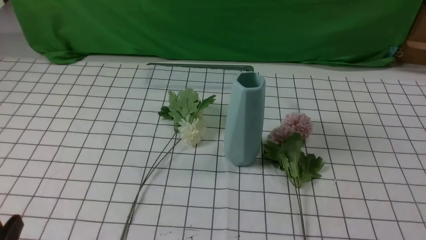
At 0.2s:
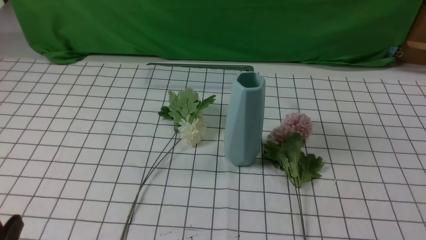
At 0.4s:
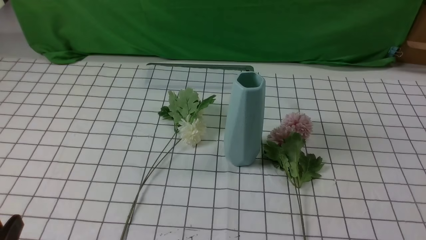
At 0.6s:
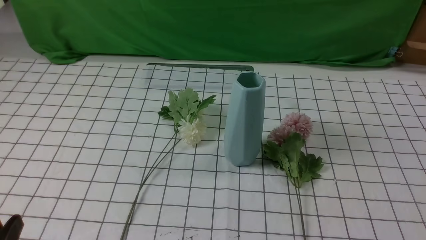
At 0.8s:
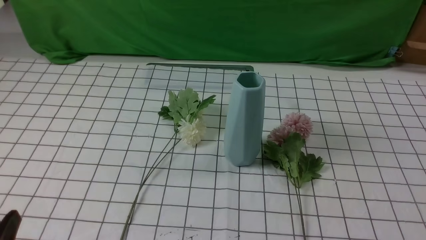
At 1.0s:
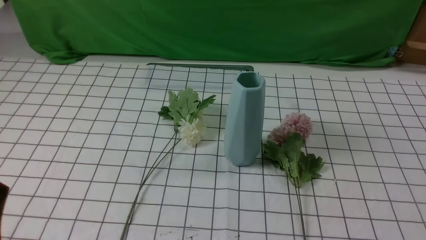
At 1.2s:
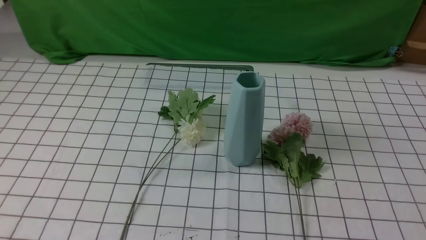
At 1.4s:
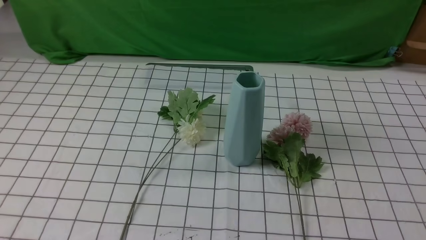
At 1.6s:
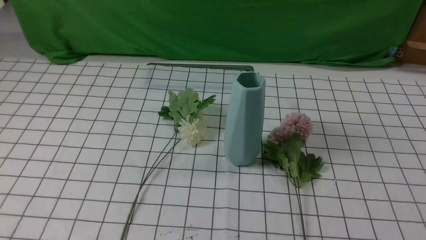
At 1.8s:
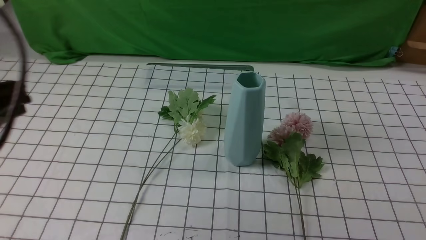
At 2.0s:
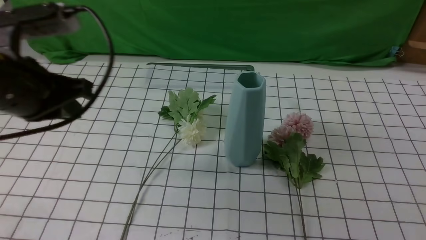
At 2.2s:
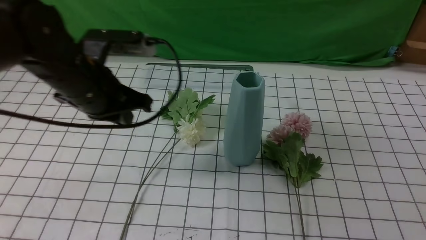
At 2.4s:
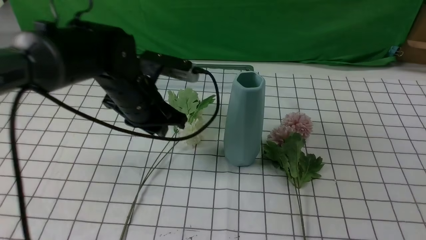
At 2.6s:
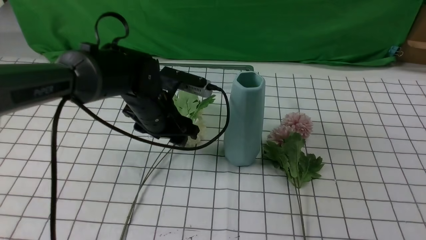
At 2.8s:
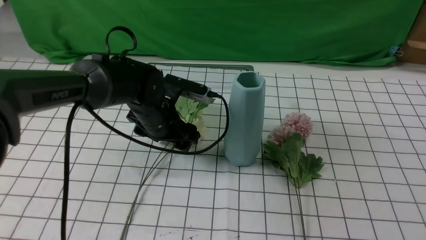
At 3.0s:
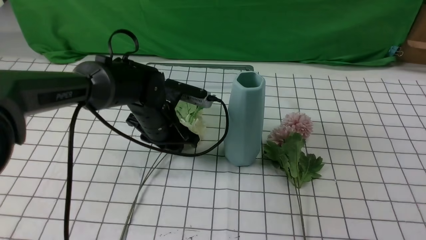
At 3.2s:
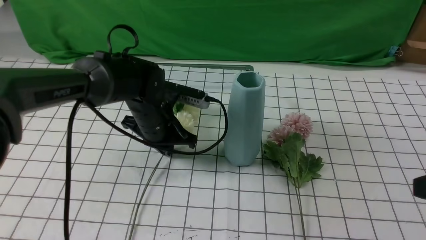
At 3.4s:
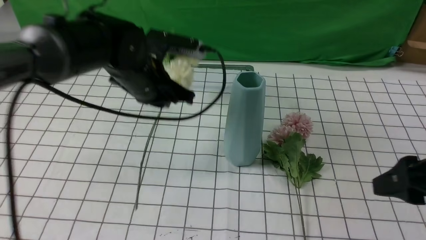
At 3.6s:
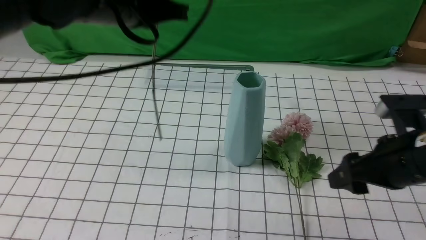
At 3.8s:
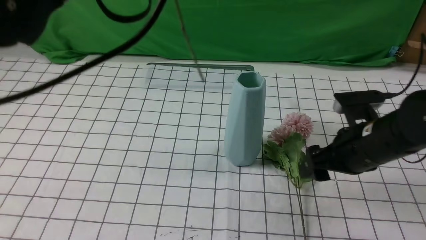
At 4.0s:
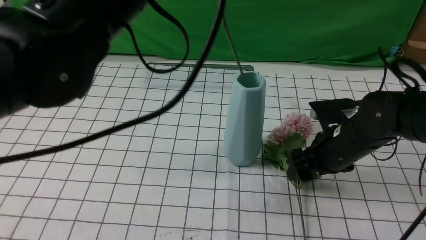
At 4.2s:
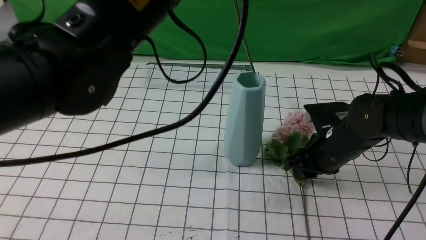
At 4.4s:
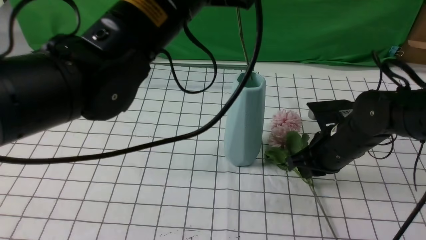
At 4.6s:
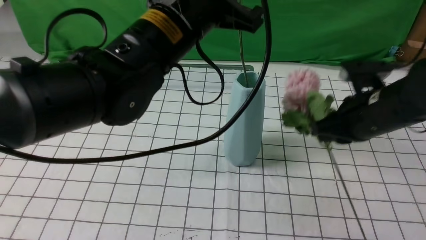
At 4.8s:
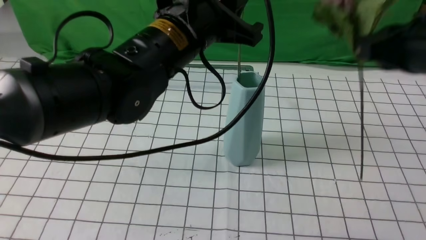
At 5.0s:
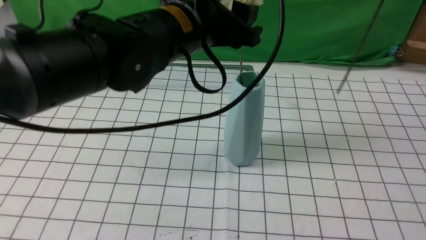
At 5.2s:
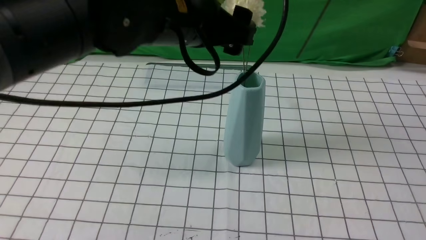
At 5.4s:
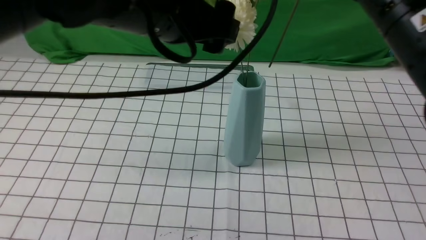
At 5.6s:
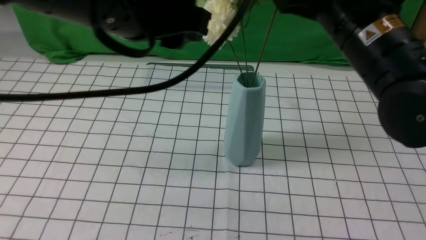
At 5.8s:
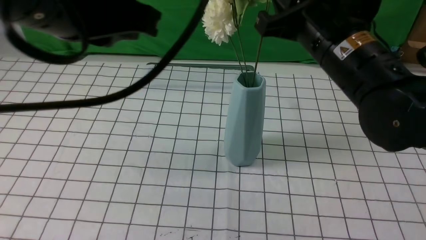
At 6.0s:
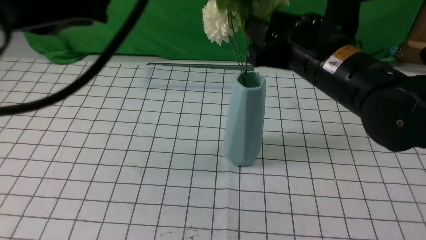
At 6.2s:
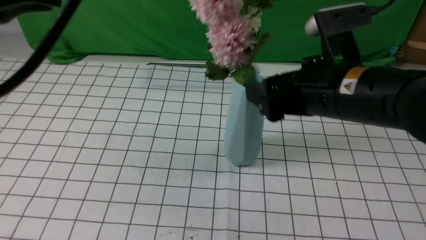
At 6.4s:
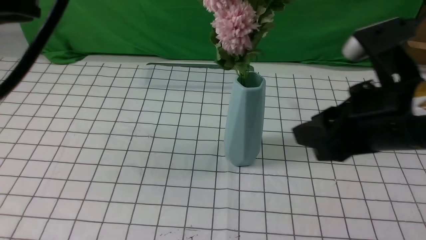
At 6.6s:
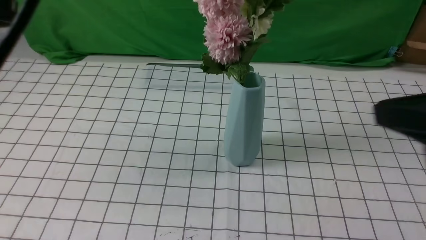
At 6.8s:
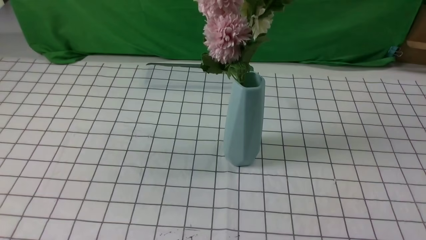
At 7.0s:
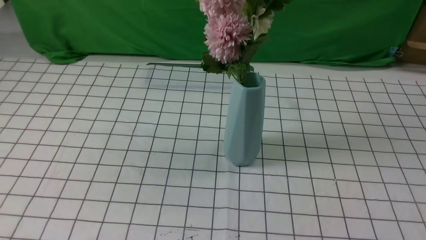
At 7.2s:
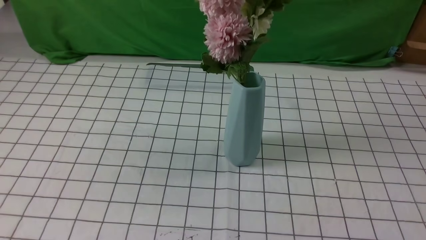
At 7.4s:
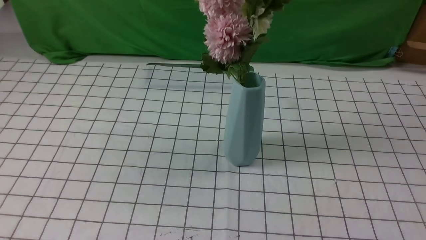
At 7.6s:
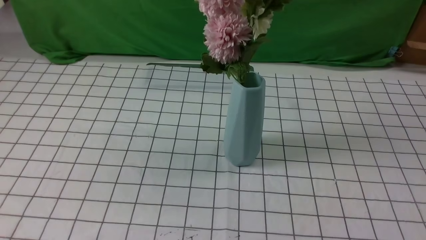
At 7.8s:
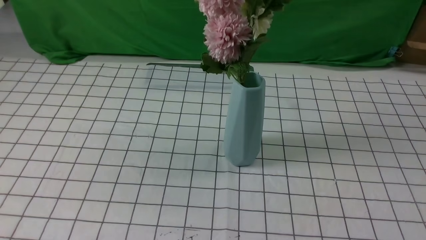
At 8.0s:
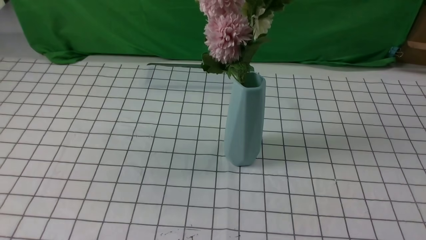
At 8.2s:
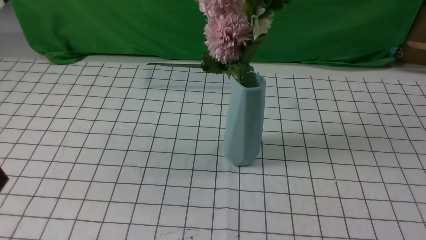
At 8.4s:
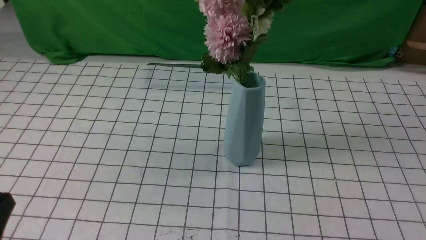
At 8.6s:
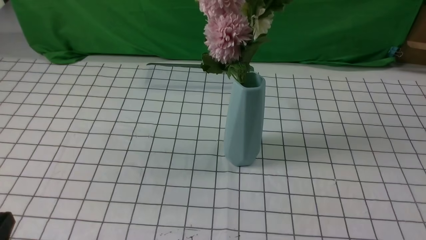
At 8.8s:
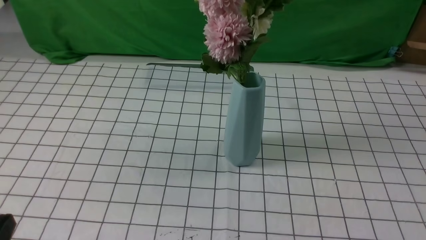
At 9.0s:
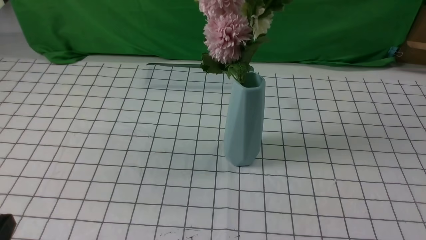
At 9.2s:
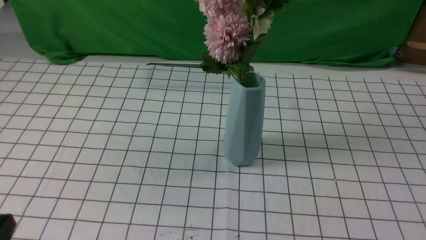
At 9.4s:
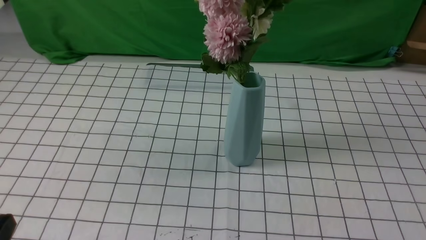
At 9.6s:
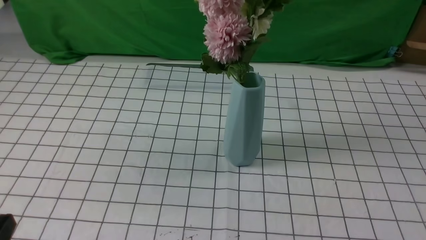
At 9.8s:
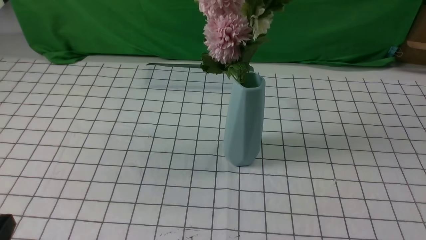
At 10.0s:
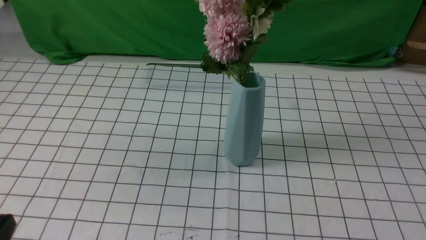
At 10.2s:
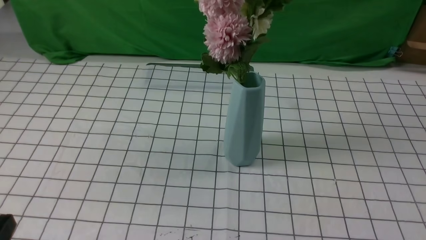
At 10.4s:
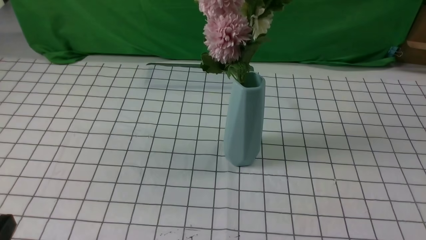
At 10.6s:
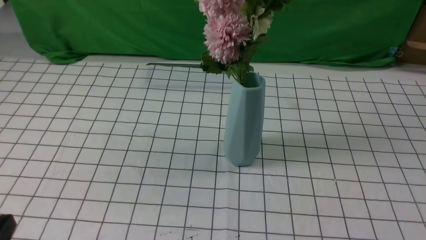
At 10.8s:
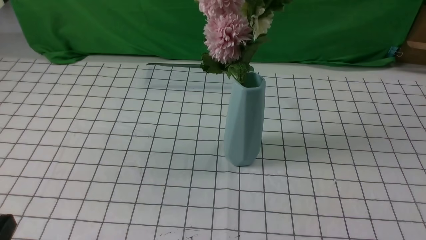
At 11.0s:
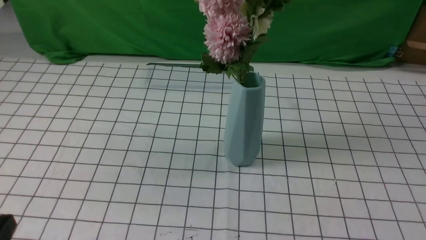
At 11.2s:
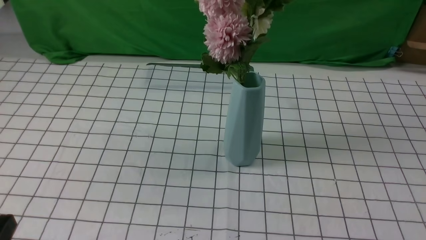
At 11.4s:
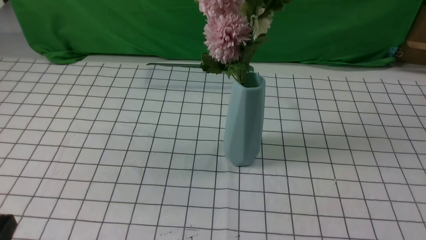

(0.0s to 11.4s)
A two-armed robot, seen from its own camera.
Task of the whole recording: insert the flowers into the vase on the table with the white tablecloth.
Step, 0.0s - 6.2s: Put the flowers in the vase with both hands.
1.4s - 2.8s: The right gripper is displaced upward and forward by some 15 cm, and opens its fingers, while the left gripper goes roughly 35 cm forward and to the right, and opens up.
2.8s - 4.2s: The left gripper moves upward and backward, some 25 cm, and closes. The right gripper moves forward, downward and to the left, about 30 cm, and closes up.
4.2s - 5.6s: The left gripper shifts by roughly 5 cm, and opens its fingers. Meanwhile the right gripper moves upward, about 20 cm.
5.6s - 7.2s: The right gripper travels backward and to the right by roughly 30 cm, and opens, then closes once more, while the left gripper shifts about 25 cm backward and to the left, and closes its fingers.

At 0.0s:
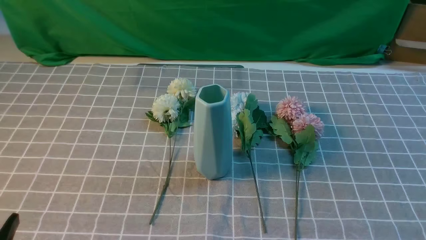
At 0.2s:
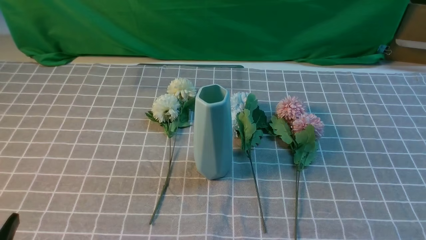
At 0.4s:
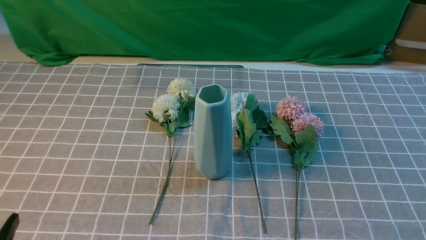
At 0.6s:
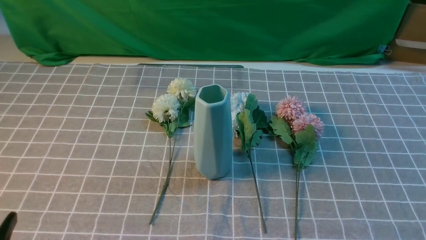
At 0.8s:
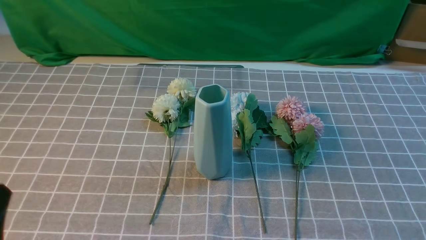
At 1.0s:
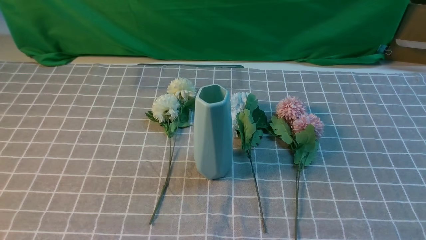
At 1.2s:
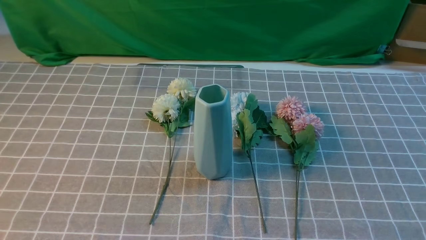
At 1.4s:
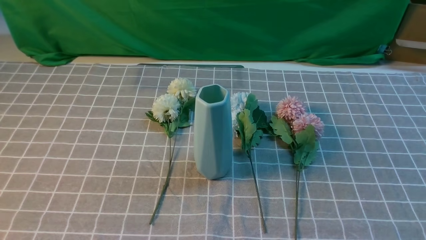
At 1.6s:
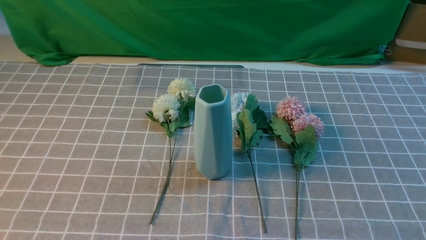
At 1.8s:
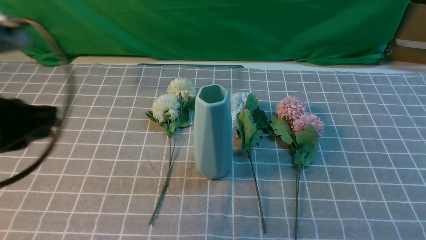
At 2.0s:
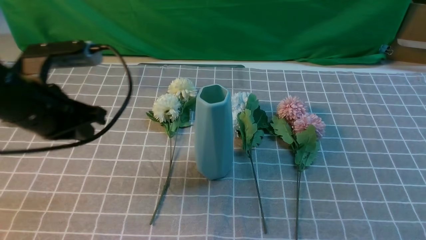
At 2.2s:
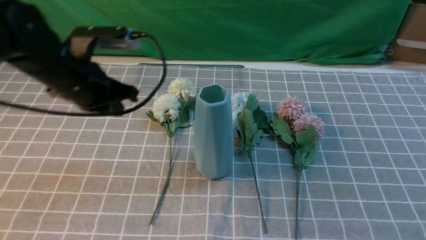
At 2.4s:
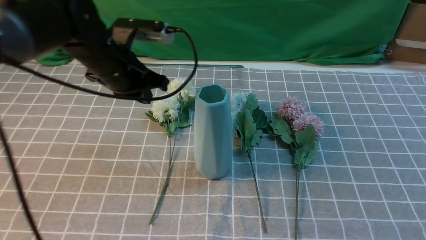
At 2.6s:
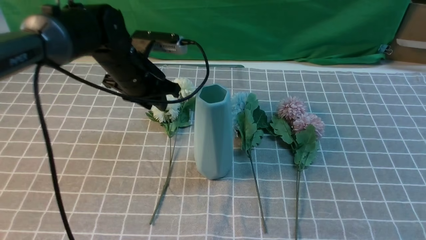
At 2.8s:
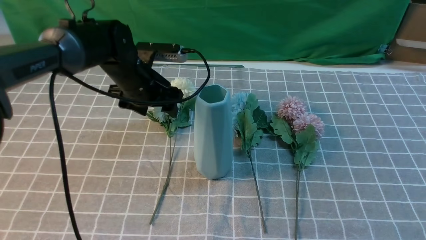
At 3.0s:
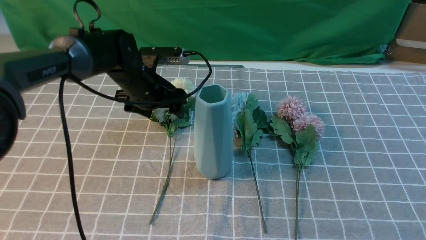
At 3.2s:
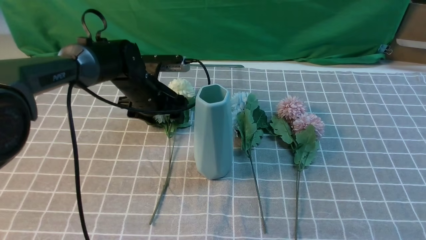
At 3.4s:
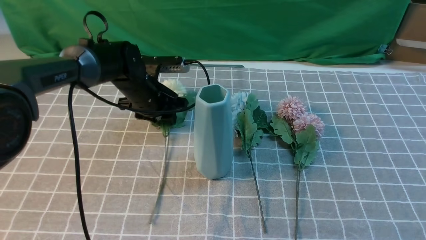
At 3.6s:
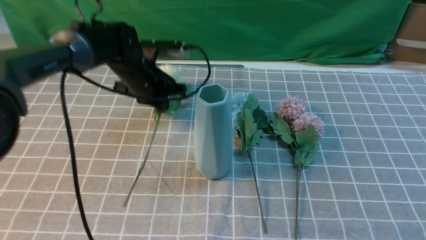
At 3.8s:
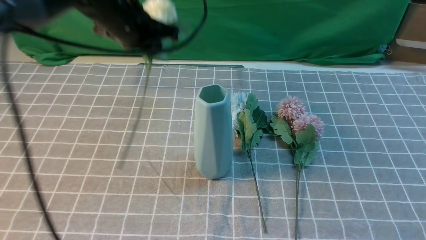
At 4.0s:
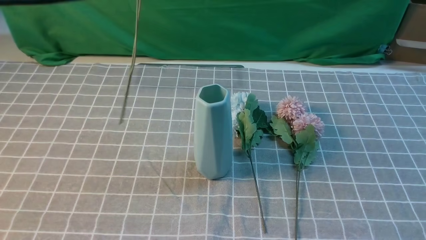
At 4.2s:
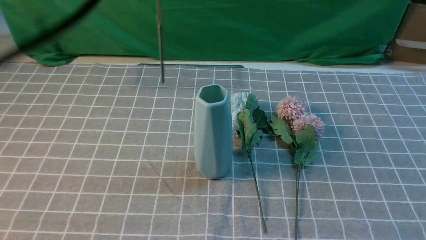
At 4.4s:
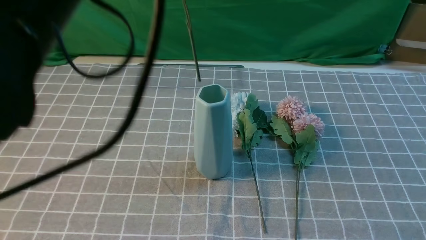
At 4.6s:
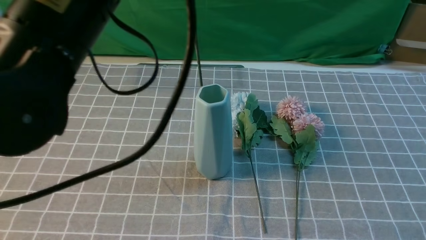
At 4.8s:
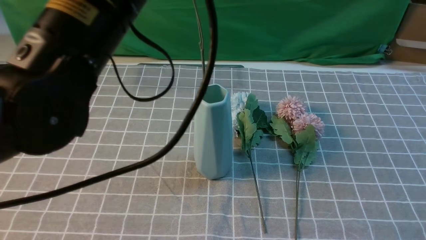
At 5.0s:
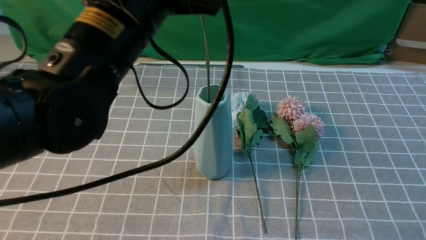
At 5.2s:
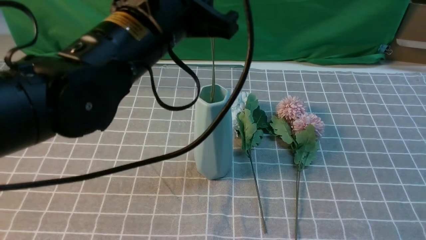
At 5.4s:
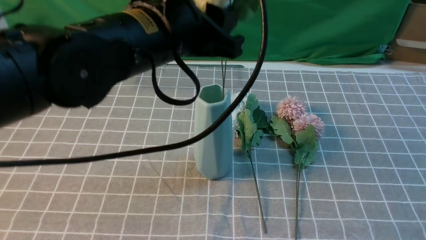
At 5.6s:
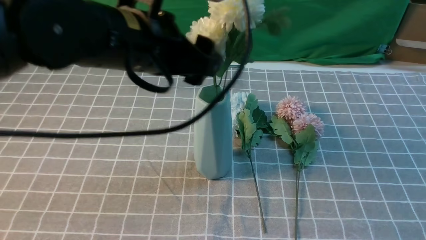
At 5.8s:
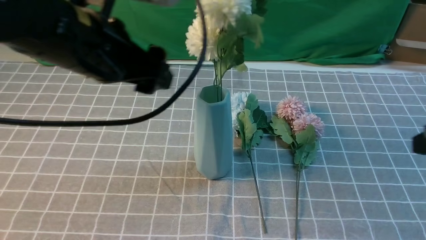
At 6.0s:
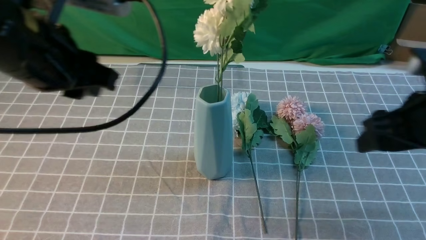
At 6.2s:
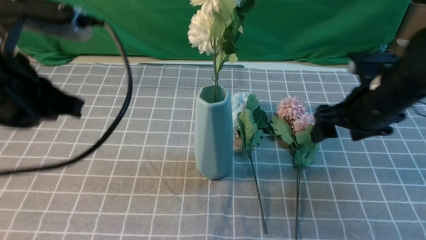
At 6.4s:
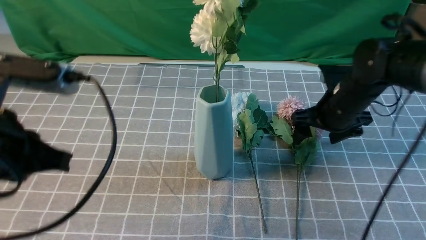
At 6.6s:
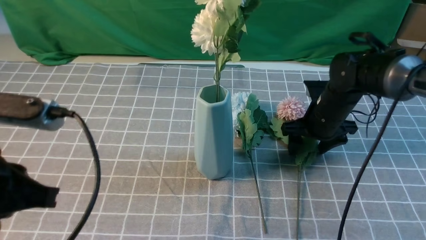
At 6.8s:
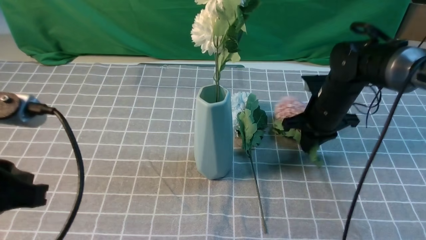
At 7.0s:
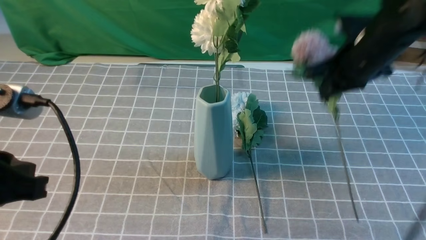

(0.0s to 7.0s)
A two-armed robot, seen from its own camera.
Task of the whole recording: insert the flowers into the vase on the table with the grey tablecloth.
Step, 0.0s - 3.4s: use the left arm to grab a bunch of fresh flowers.
Step, 3.6s - 5.6s: use the left arm to insert the flowers into the vase.
Step, 5.8s - 6.6s: use the right arm to grab a bunch of fresh flowers.
1.4s - 2.8s: The right gripper shifts approximately 15 cm upward and forward. The left gripper moves forward, about 40 cm, and opens.
2.8s - 4.2s: The left gripper heads upward and backward, covering some 30 cm, and closes up.
4.2s - 5.6s: The left gripper travels downward by about 10 cm, and opens its fingers.
5.6s - 7.0s: The left gripper moves backward and to the left, roughly 20 cm, and closes; the right gripper shifts about 25 cm forward and to the left, and opens and closes again.
